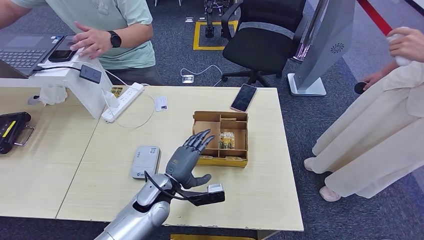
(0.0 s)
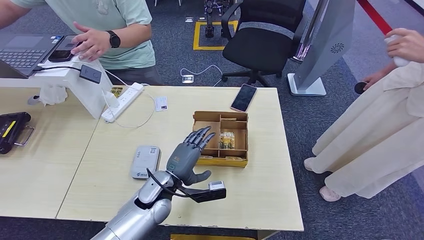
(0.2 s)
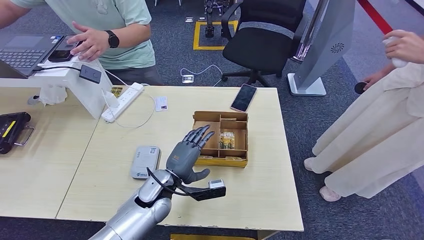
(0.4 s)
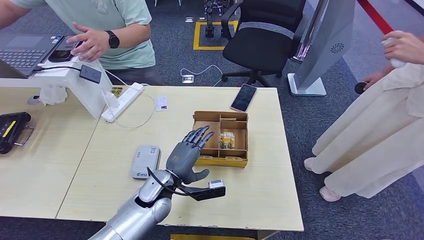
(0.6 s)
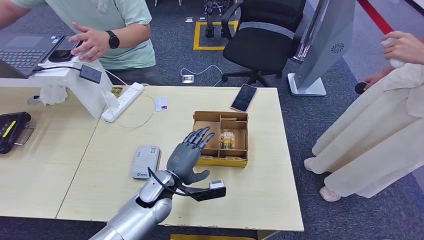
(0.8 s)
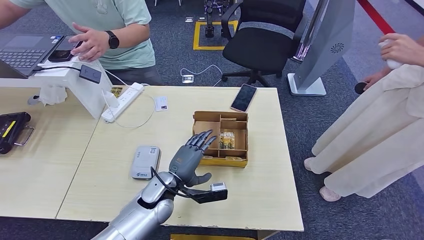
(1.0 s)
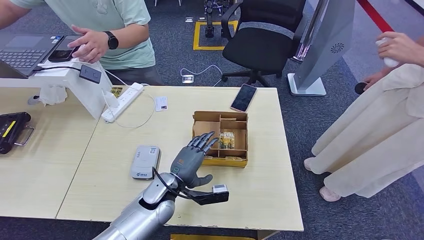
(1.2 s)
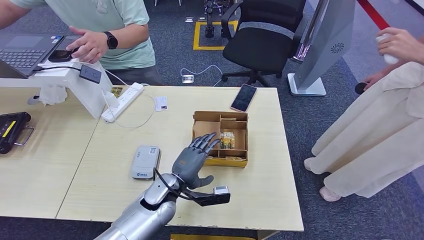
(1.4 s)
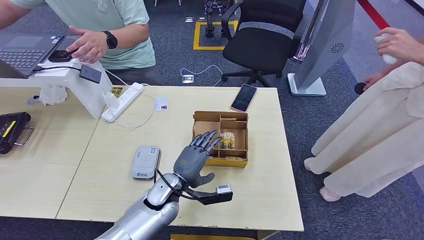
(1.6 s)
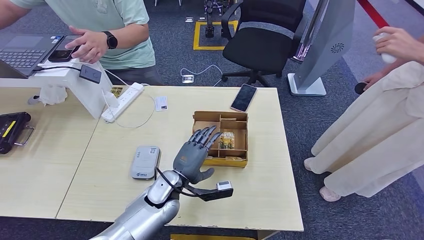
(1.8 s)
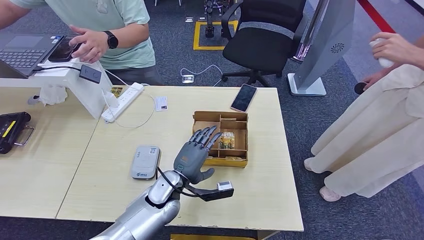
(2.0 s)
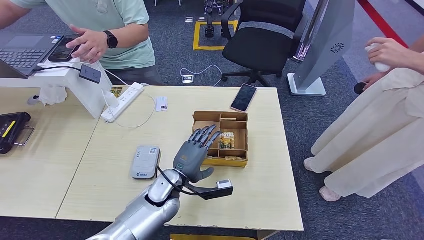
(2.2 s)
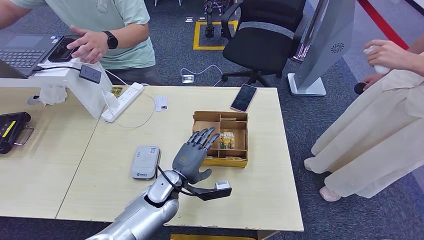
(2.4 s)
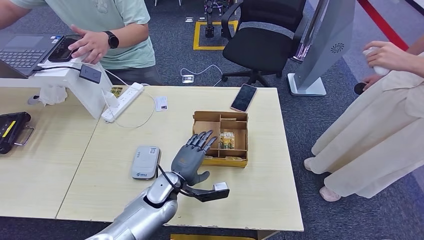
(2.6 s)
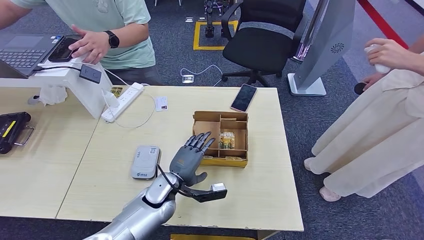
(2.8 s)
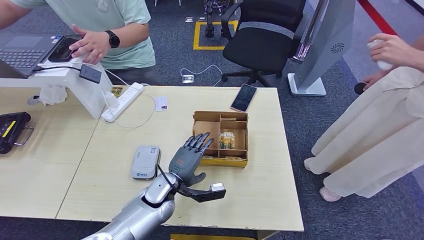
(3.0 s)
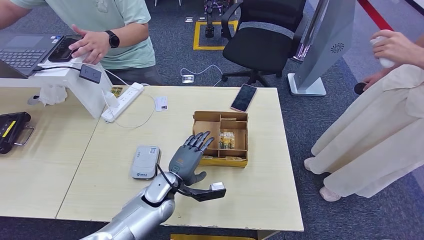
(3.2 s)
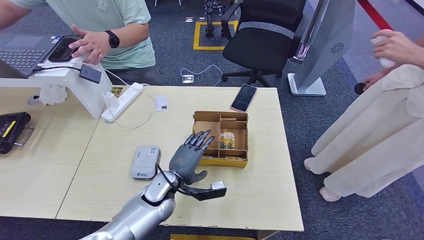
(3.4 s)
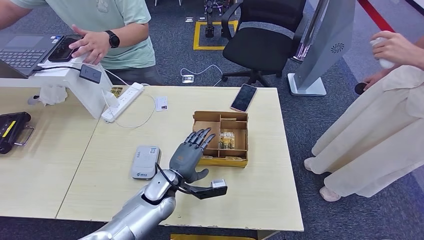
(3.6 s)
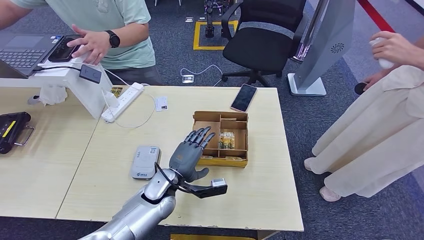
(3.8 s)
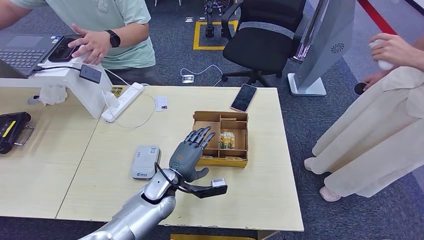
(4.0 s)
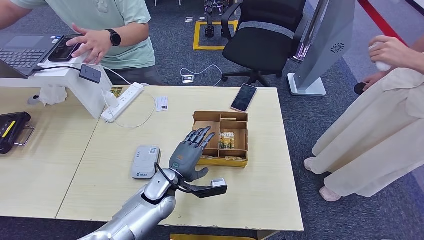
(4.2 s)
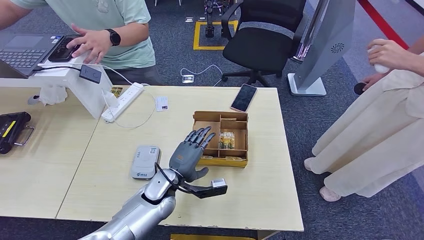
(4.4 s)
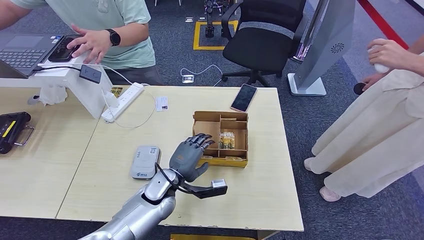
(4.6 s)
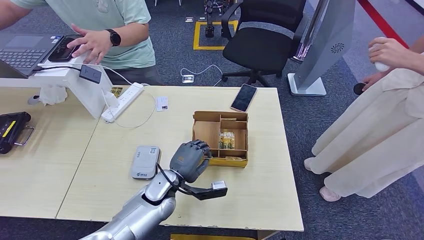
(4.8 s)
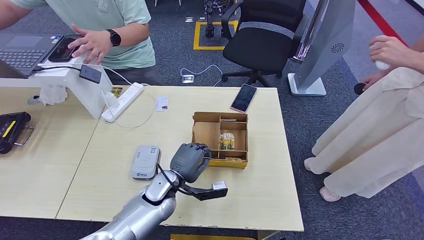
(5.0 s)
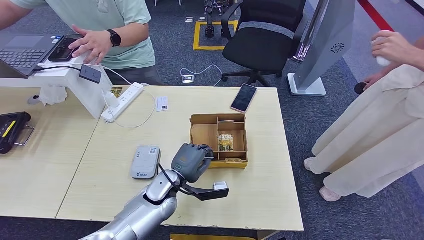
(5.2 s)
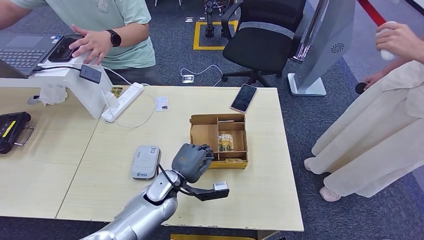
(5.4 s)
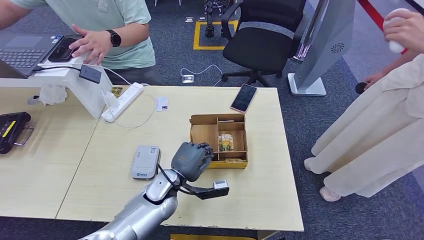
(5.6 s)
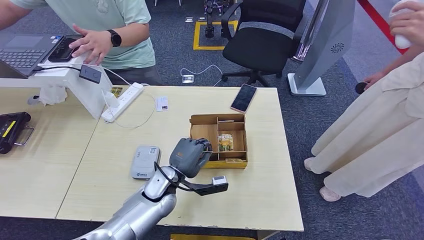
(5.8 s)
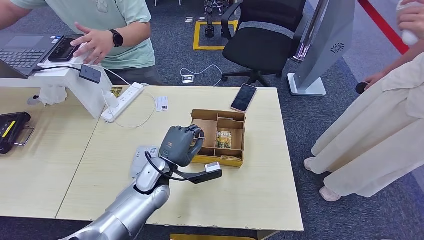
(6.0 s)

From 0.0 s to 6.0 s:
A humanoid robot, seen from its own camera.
Step, from 0.0 s to 6.0 s: Hand the room key to the person.
From 0.0 s to 6.0 s: There are only small adjustments of the hands.

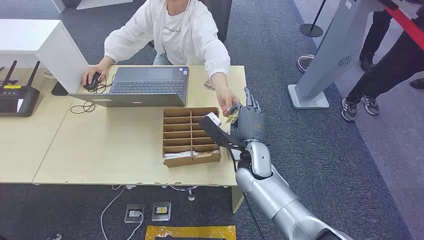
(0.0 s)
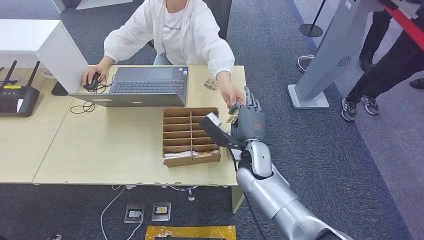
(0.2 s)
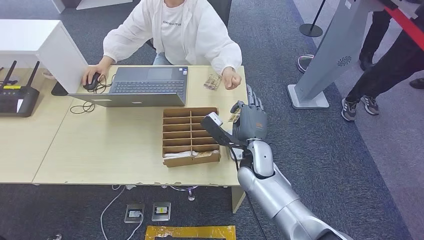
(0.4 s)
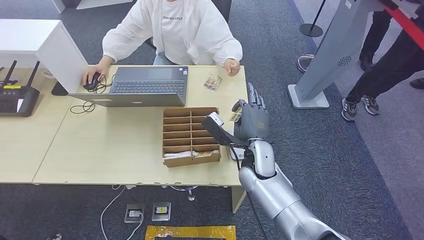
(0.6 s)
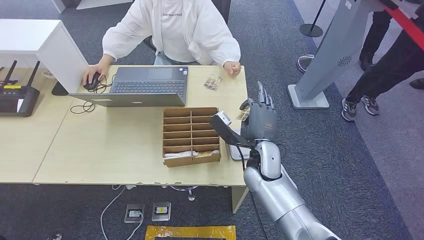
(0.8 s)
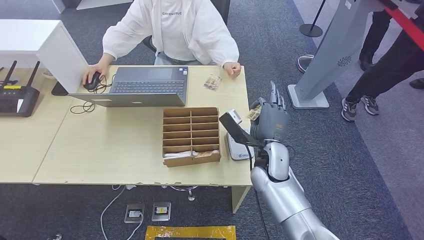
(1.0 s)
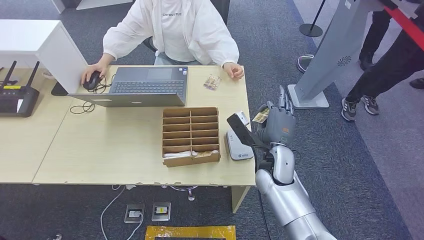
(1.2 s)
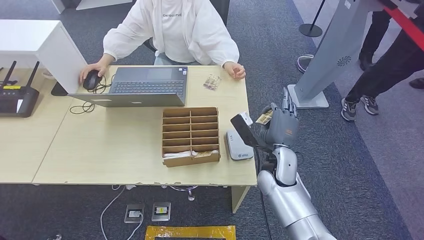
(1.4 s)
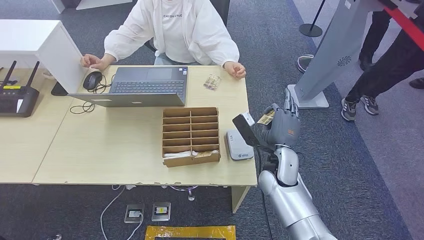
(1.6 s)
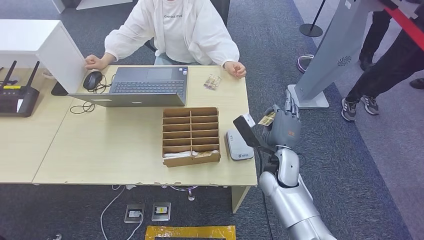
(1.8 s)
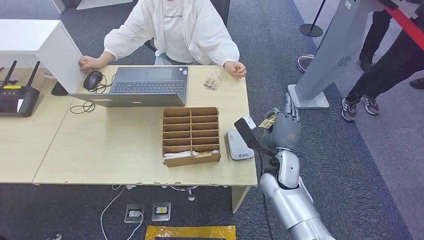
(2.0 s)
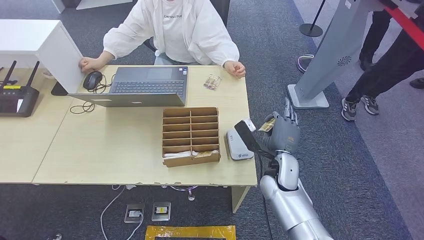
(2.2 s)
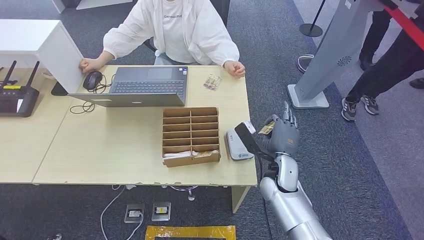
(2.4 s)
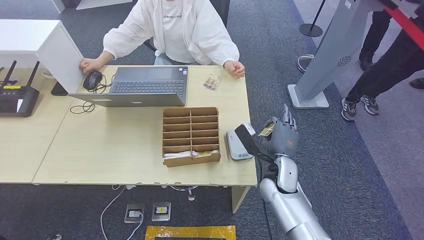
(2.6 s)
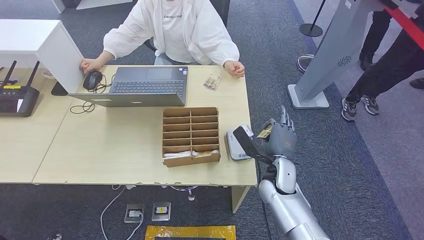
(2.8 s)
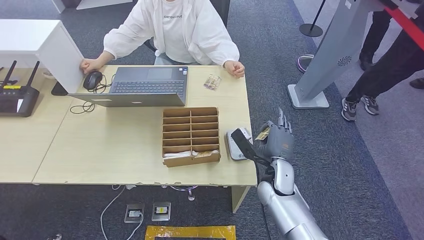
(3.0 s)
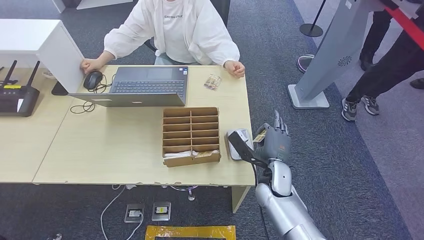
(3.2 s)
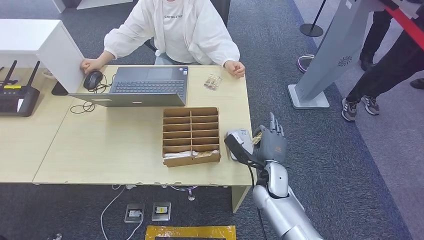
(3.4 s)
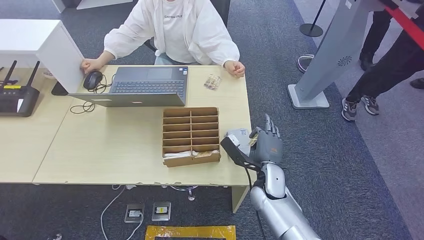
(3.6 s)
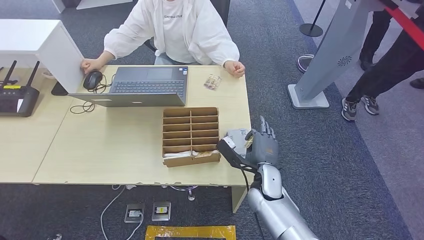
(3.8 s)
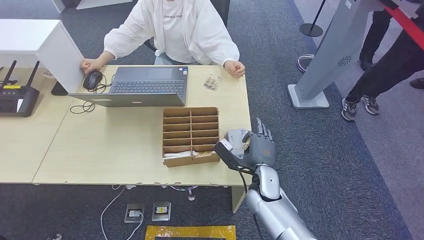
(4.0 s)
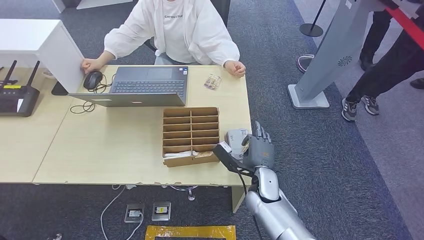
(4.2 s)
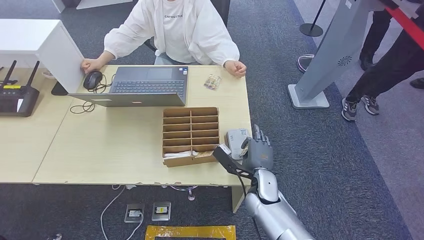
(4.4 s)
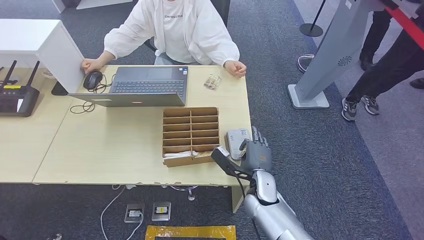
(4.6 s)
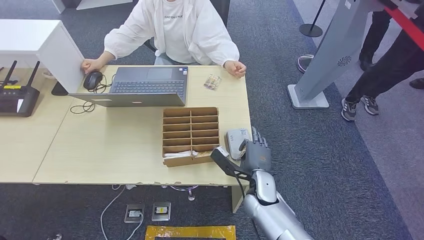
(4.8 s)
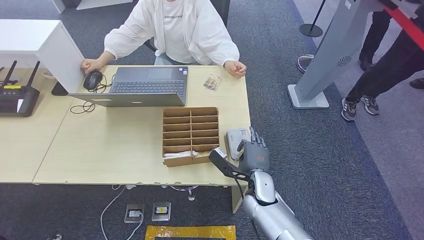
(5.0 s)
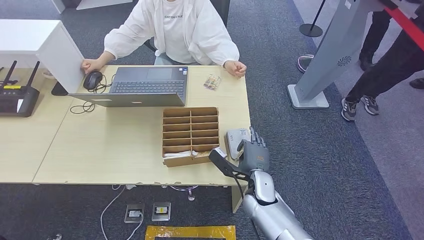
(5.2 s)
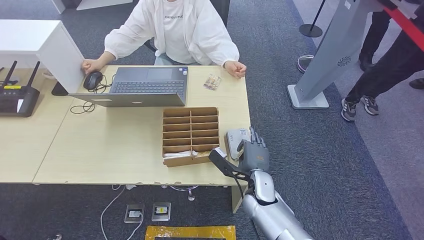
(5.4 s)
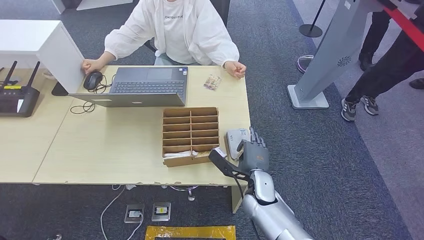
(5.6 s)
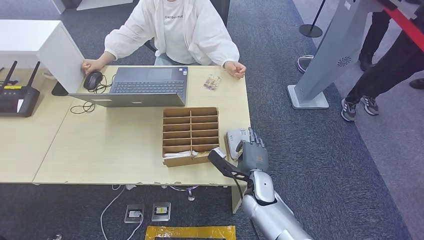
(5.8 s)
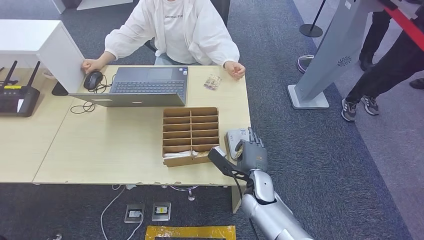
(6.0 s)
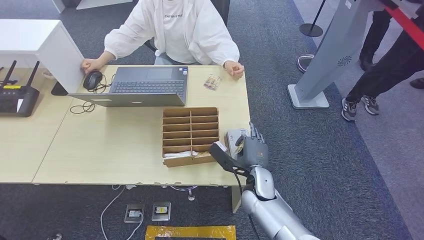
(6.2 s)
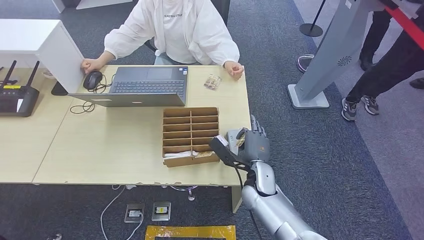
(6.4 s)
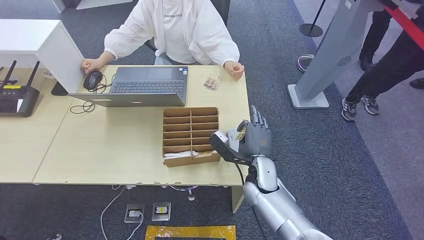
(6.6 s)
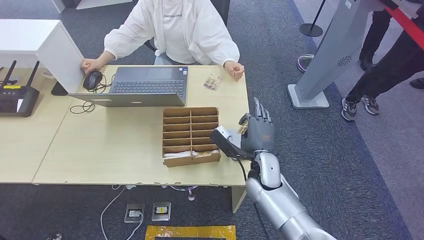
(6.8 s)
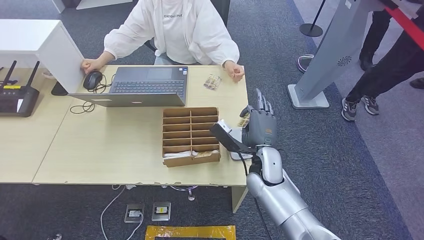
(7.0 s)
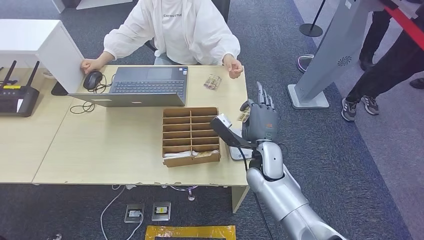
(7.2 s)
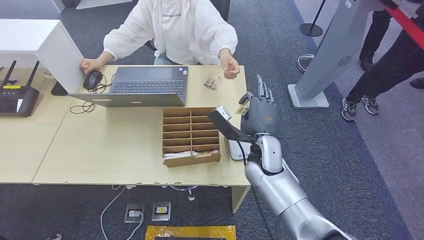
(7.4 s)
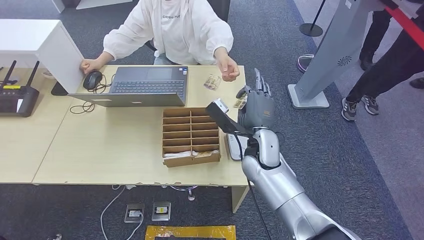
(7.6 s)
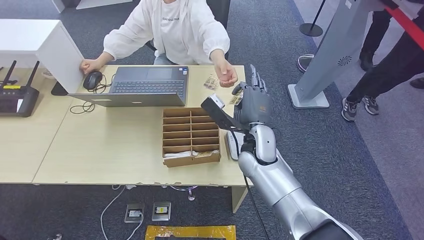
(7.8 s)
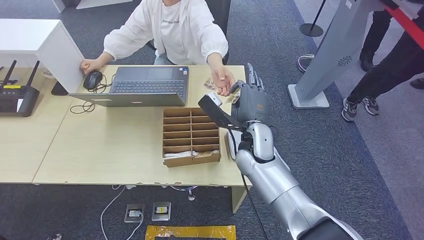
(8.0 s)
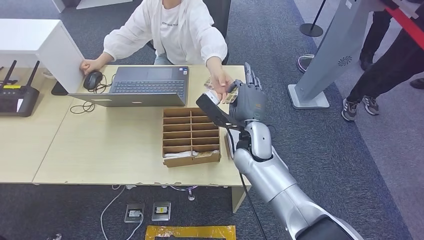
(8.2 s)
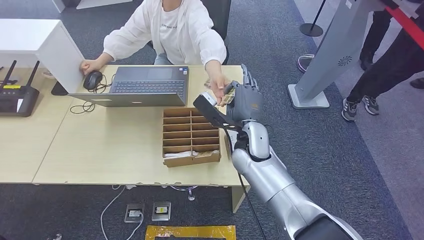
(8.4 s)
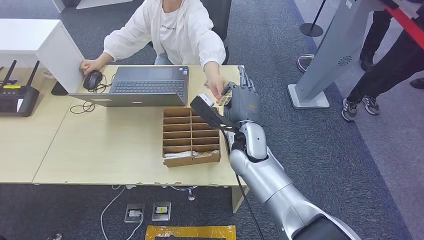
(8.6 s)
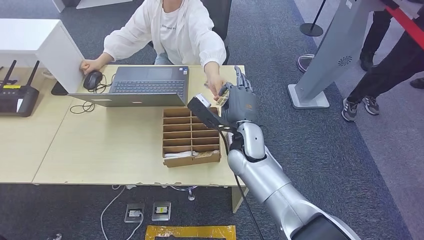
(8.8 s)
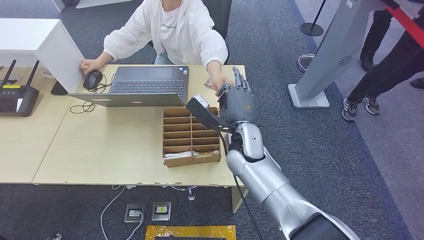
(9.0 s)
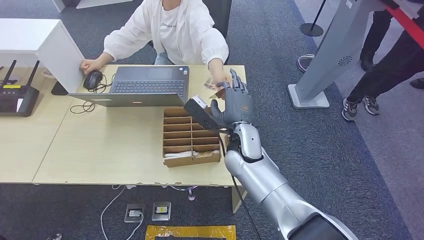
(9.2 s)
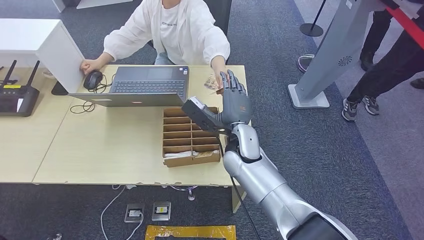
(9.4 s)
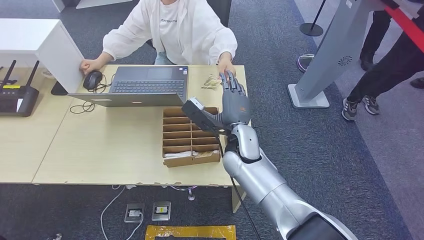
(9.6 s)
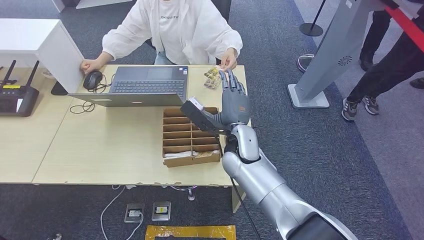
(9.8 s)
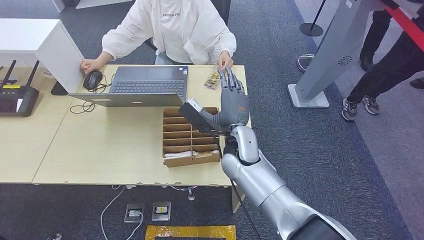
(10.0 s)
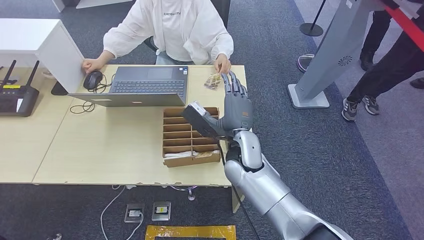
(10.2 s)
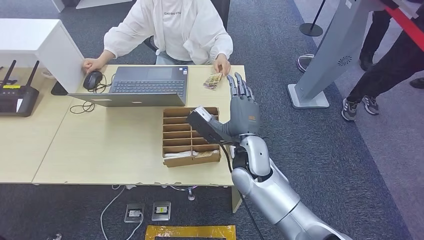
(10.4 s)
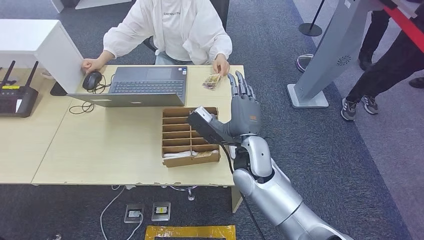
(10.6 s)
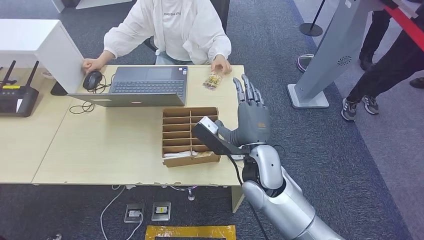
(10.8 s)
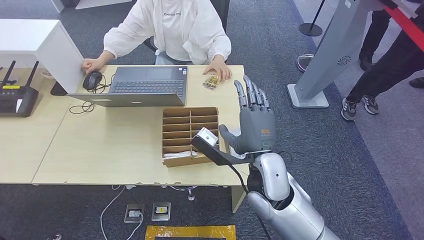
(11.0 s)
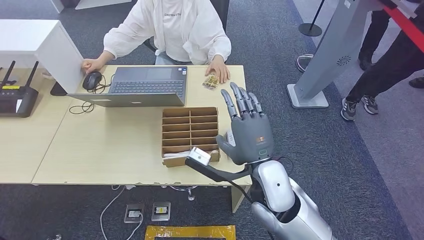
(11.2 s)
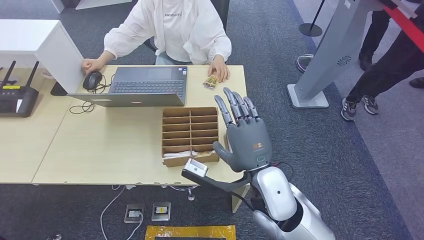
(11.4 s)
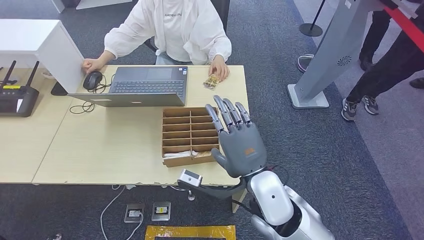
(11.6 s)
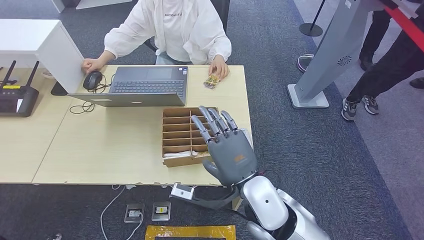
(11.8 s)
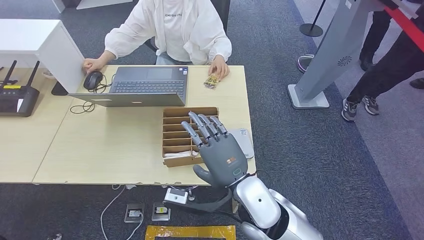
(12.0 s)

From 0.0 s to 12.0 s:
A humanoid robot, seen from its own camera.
Step, from 0.0 s to 1.0 s: Take the ID card from the person's hand.
Step, from 1.2 s to 7.2 s: Place the ID card on the card reader.
Step, from 7.4 s to 9.8 s: Hand the ID card to the person.
From 1.6 s to 3.0 s: The hands make only small movements.
From 3.0 s to 4.4 s: The hands move only a little.
From 4.4 s to 6.0 s: Neither hand changes place.
From 6.0 s to 7.6 s: The right hand moves upward and forward, roughly 15 cm.
From 7.6 s to 10.4 s: The hands make only small movements.
From 10.4 s to 12.0 s: The right hand is displaced backward by some 10 cm.
